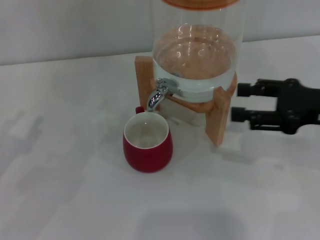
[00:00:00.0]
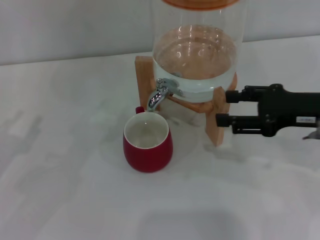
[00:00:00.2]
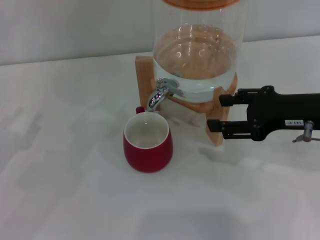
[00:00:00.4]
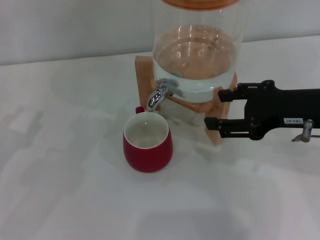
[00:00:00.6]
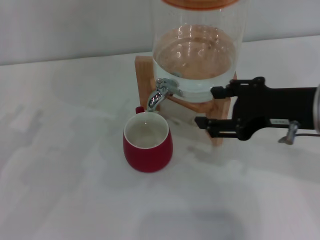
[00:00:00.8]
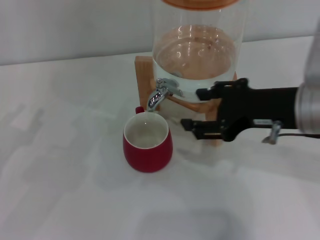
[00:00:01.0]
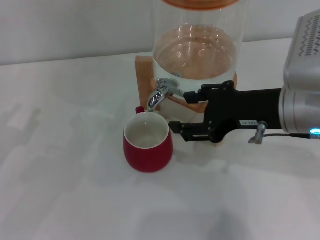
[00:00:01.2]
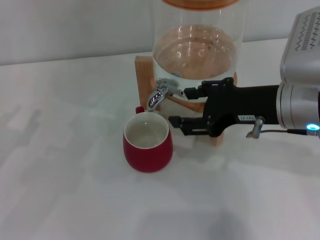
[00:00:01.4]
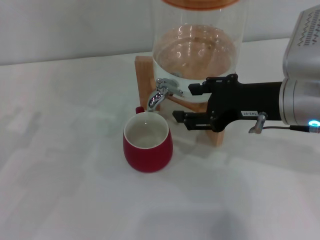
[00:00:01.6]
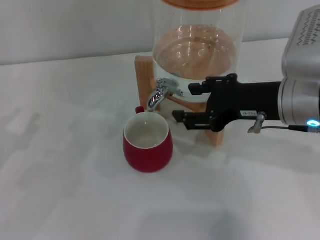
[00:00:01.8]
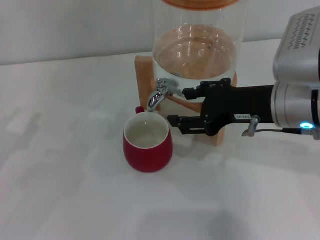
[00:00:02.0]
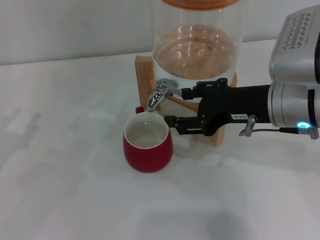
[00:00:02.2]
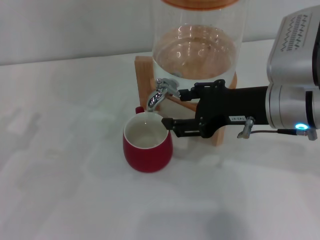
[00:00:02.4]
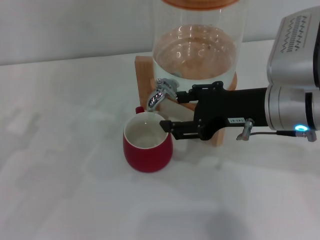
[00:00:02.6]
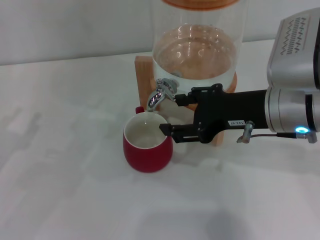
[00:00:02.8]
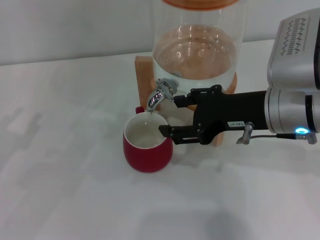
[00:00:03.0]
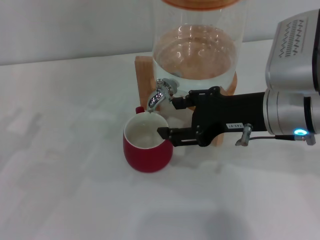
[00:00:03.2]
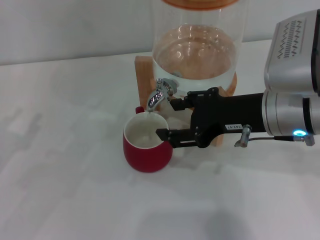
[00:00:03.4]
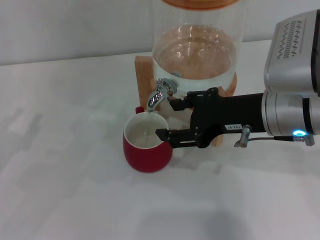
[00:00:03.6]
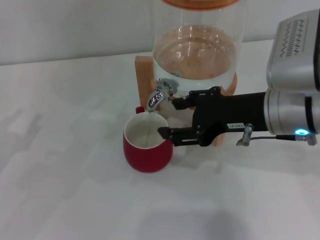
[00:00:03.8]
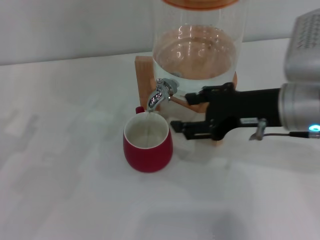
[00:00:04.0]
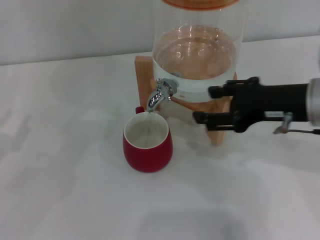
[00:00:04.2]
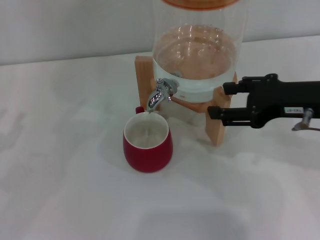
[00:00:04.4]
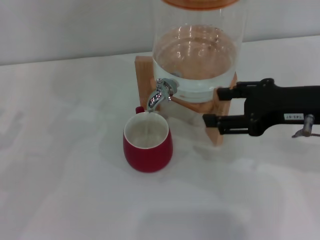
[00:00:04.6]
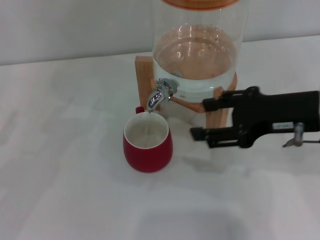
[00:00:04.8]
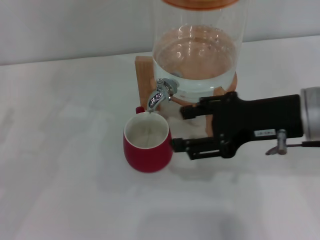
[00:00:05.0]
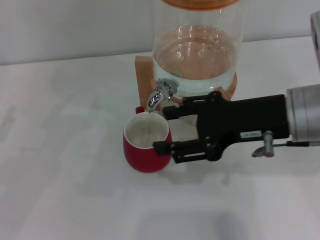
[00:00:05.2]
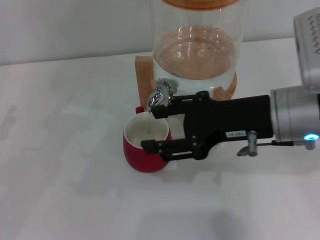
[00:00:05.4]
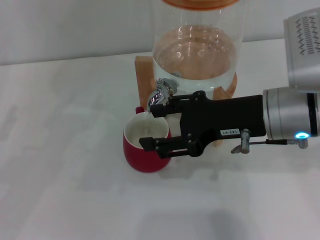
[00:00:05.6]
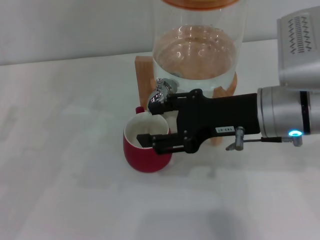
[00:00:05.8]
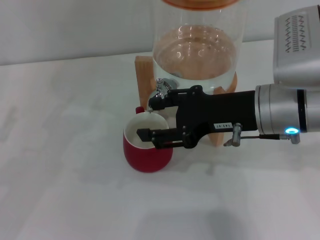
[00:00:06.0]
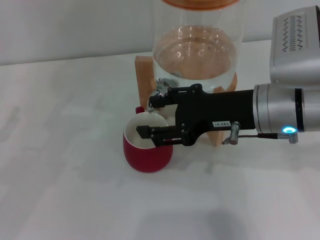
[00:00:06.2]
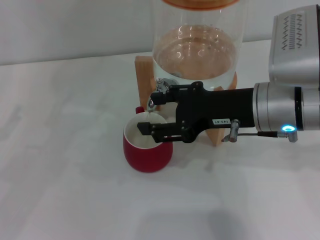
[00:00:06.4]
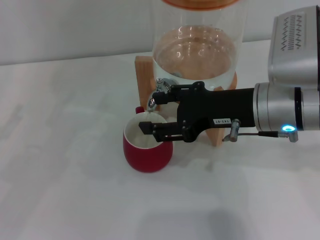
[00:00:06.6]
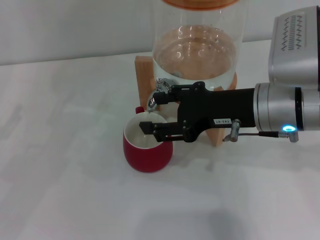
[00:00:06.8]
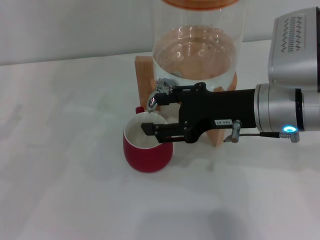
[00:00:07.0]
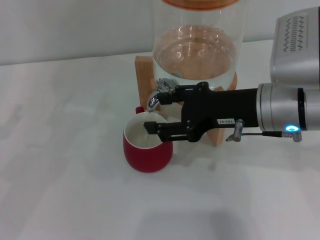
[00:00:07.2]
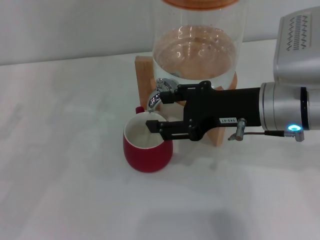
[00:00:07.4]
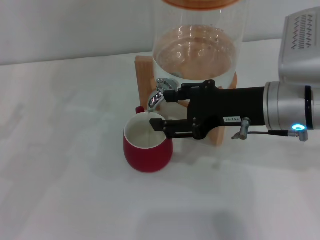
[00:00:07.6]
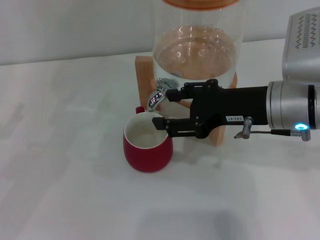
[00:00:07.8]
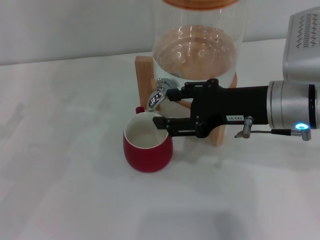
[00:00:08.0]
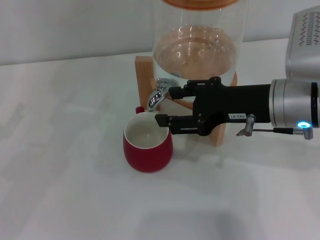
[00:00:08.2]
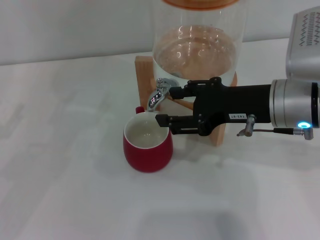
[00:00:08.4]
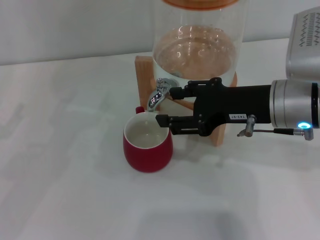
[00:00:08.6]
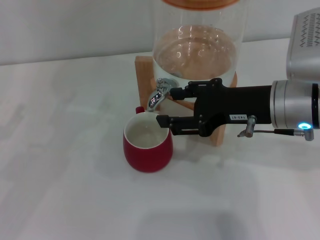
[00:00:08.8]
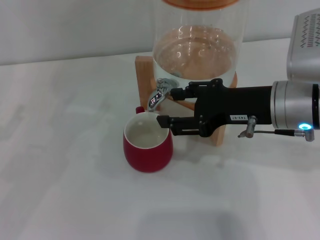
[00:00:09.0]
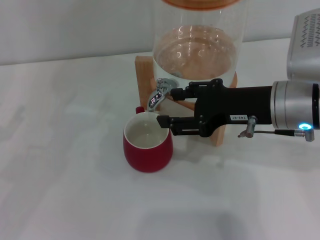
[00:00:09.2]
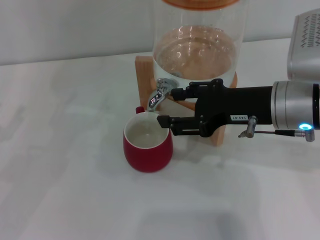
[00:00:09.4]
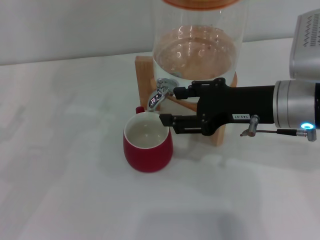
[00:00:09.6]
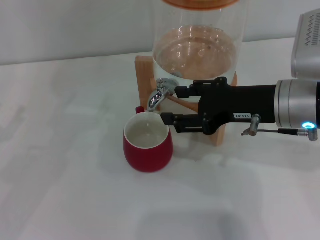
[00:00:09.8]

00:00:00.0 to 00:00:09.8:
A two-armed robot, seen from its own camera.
Task of the whole recording: the left gripper pick up the red cup and place it horizontally under the faucet, the right gripper turn on the faucet to fill the cup, and then turn off the faucet.
Step, 00:00:00.0 to 00:00:03.8: Open the dispenser valve and fill the cup with water with the right gripper.
00:00:00.0 to 00:00:01.4: The right gripper goes approximately 10 cm to the left.
00:00:01.4 to 00:00:02.8: Neither gripper changes place.
00:00:02.8 to 00:00:04.2: The grippers make only small movements.
00:00:04.2 to 00:00:05.6: The right gripper goes approximately 5 cm to the left.
00:00:05.6 to 00:00:08.4: The grippers make only small movements.
00:00:08.4 to 00:00:09.8: Both grippers stay put.

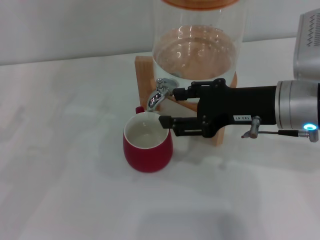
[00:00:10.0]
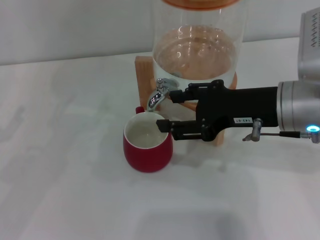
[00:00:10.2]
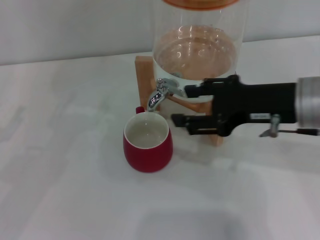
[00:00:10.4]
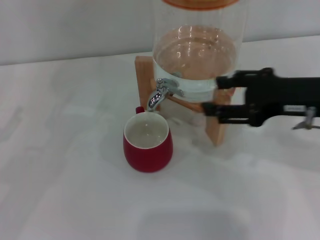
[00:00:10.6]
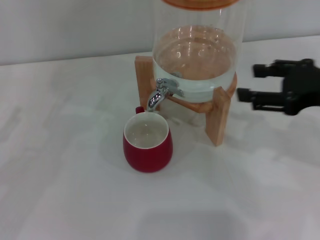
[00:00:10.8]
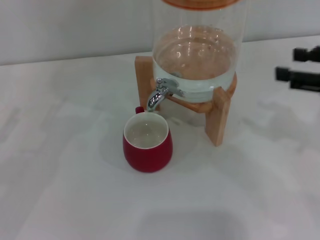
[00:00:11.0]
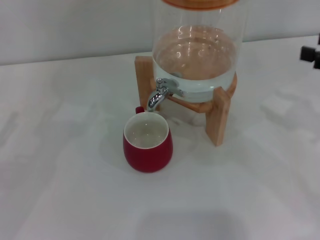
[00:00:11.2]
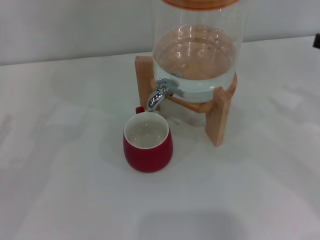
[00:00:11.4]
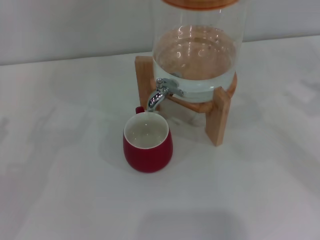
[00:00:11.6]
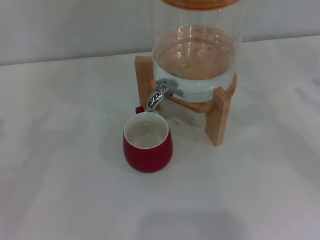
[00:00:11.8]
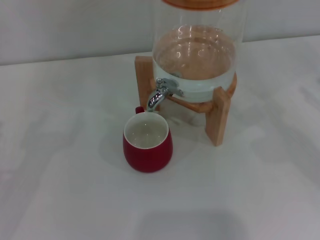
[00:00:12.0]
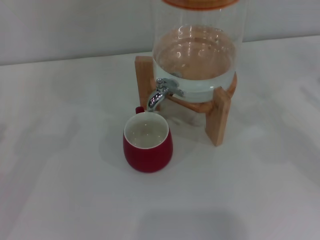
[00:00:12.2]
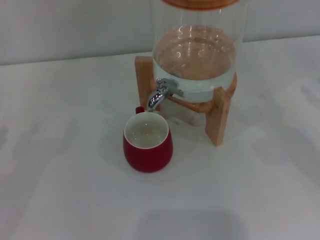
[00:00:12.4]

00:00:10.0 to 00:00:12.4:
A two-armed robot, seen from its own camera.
Task of the whole recording: the left gripper pick up the red cup and place it horizontally under the faucet, the right gripper turn on the faucet to fill the cup, and then turn off the faucet.
00:00:10.0 to 00:00:11.2: The right gripper travels to the right by about 15 cm.
00:00:11.2 to 00:00:12.4: The right gripper is displaced to the right by roughly 5 cm.
